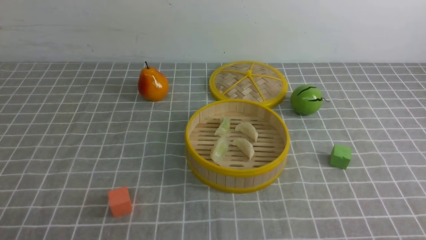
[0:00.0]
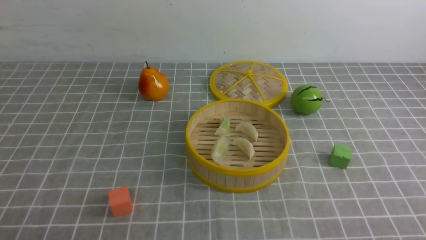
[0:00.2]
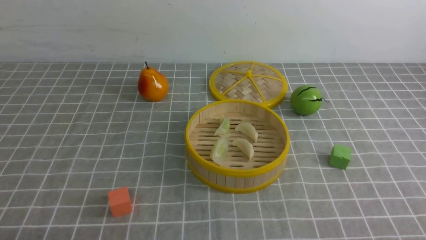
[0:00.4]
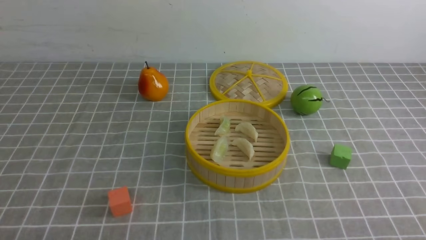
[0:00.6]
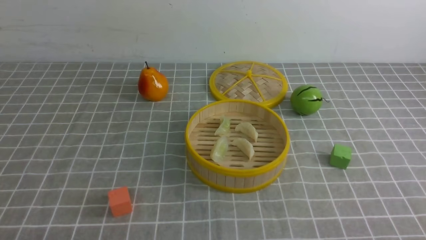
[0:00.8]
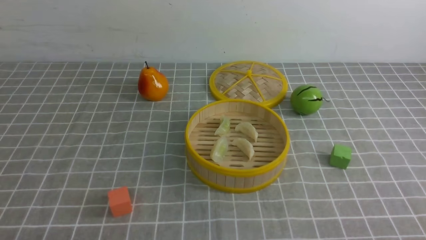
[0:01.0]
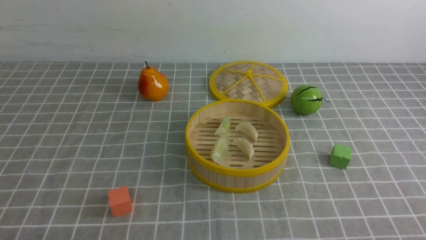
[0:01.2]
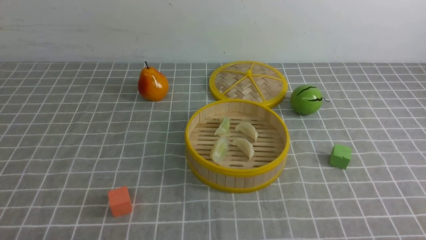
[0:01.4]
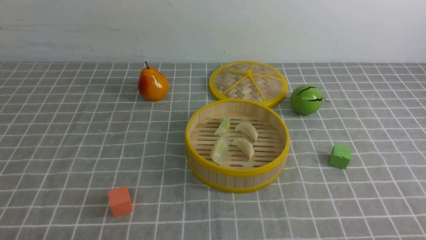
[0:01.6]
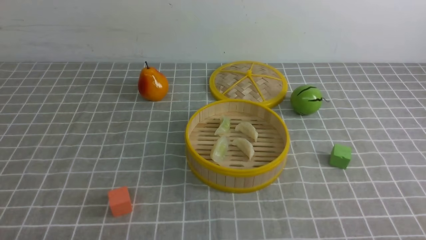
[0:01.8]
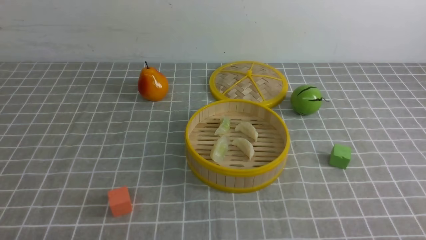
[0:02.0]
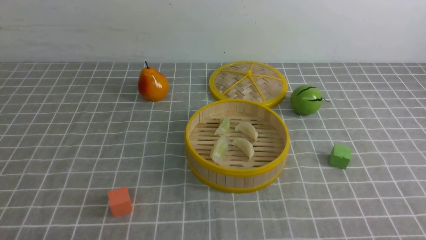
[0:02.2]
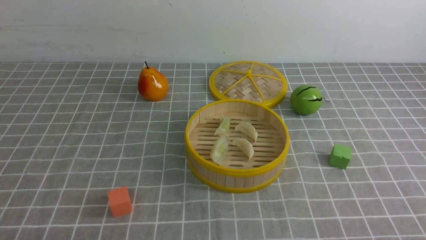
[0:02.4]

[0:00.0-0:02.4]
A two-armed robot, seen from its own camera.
Task of the whole recording: put the dumplings into the steamer on the table with the grey tablecloth.
0:01.2 to 0:02.4: Neither gripper changes place.

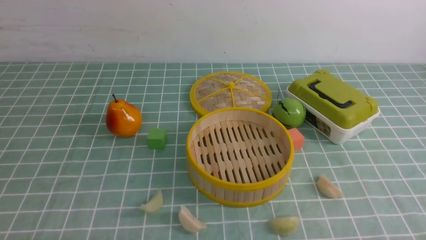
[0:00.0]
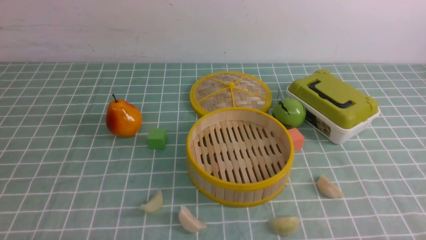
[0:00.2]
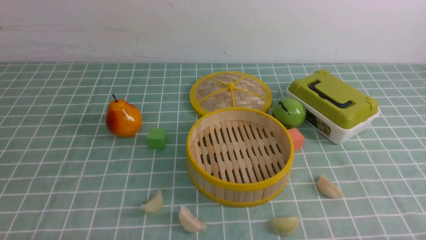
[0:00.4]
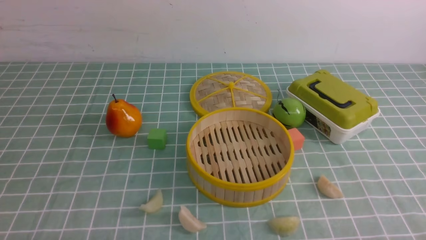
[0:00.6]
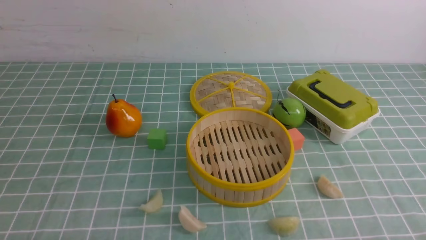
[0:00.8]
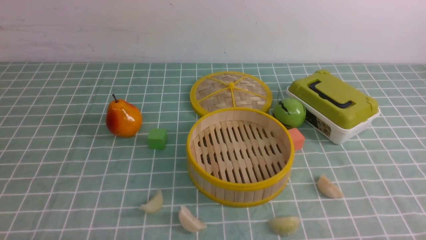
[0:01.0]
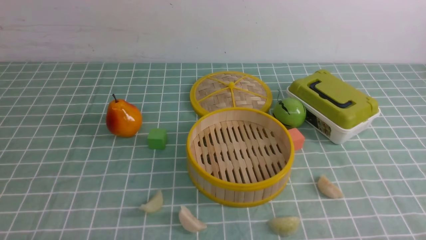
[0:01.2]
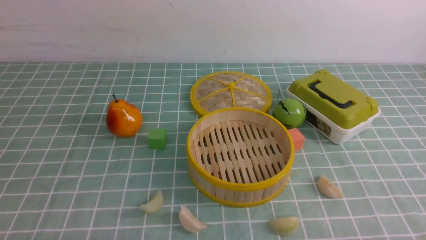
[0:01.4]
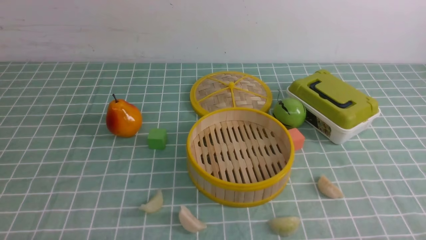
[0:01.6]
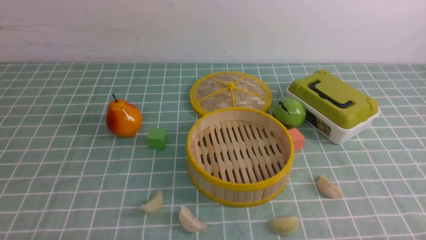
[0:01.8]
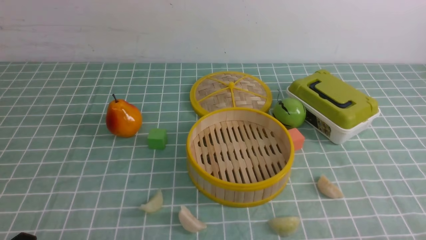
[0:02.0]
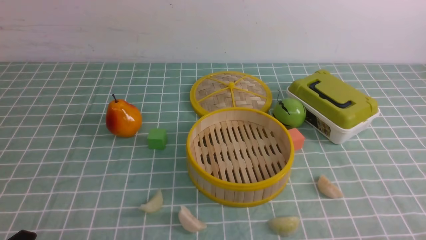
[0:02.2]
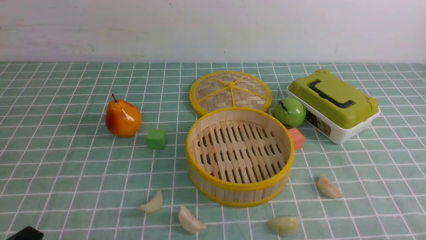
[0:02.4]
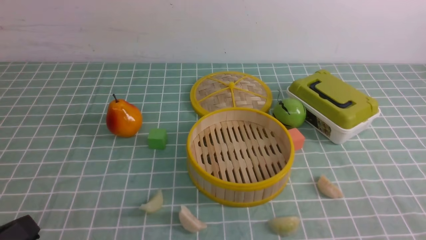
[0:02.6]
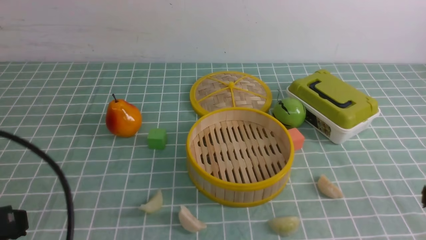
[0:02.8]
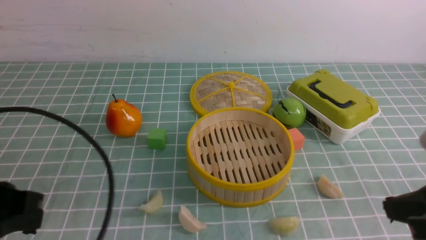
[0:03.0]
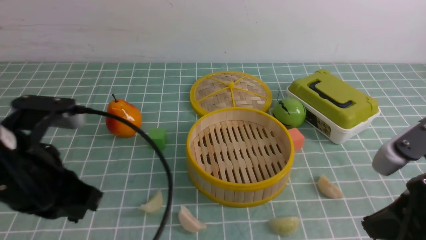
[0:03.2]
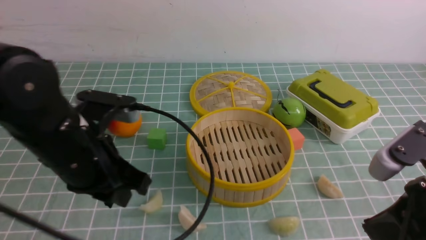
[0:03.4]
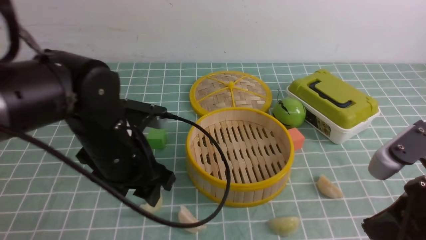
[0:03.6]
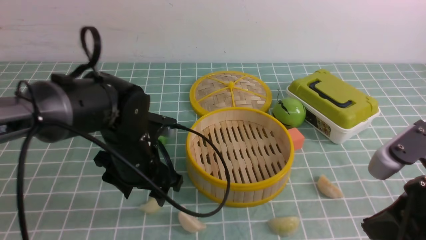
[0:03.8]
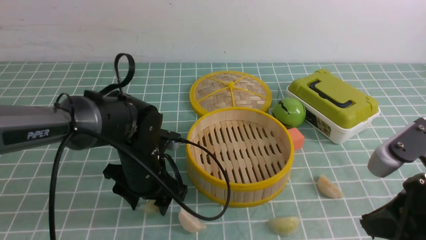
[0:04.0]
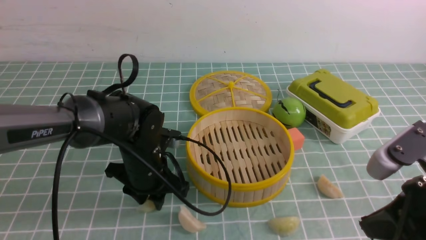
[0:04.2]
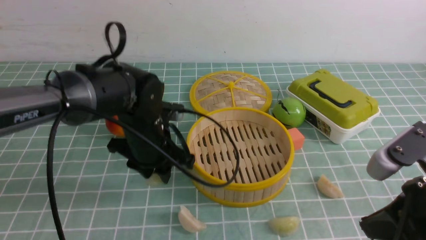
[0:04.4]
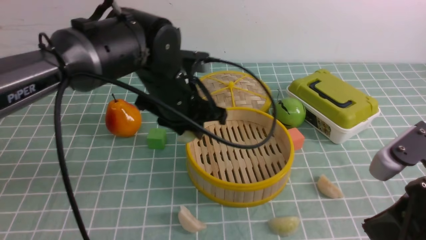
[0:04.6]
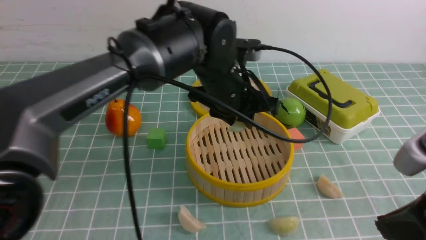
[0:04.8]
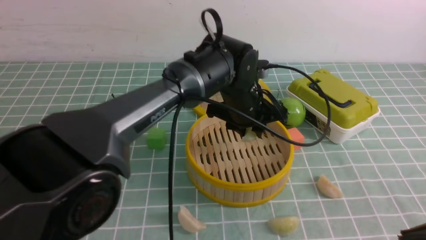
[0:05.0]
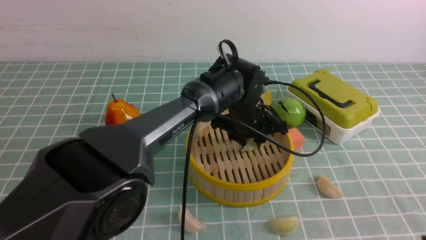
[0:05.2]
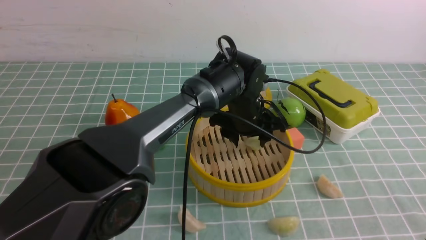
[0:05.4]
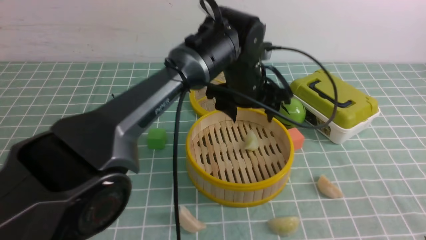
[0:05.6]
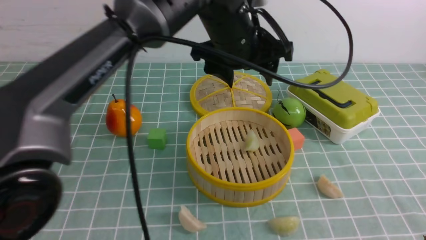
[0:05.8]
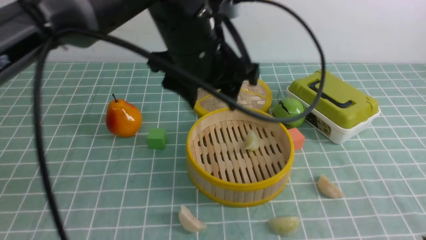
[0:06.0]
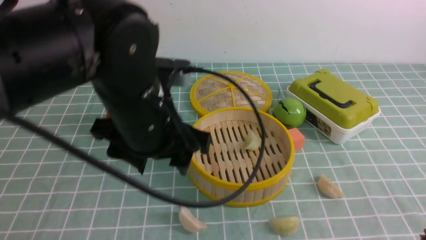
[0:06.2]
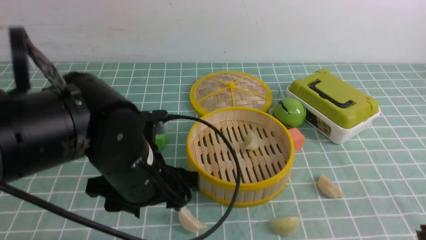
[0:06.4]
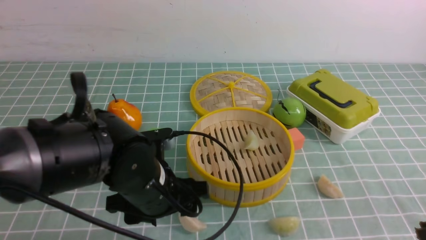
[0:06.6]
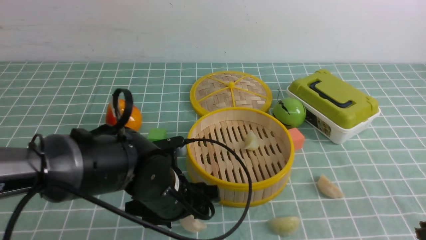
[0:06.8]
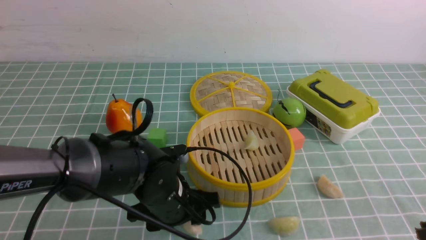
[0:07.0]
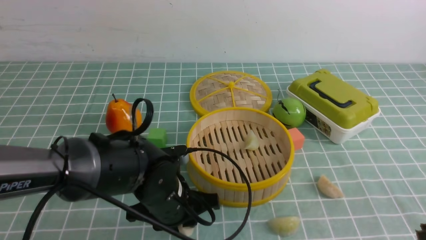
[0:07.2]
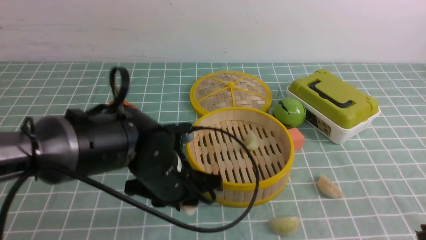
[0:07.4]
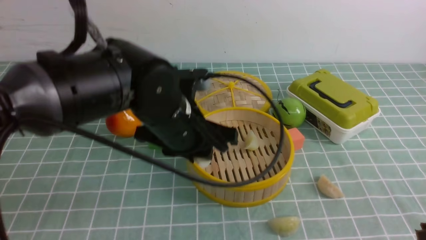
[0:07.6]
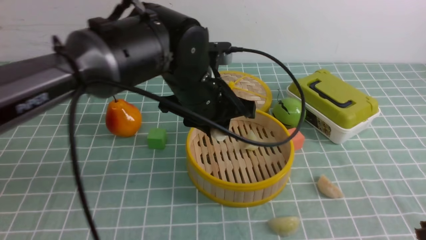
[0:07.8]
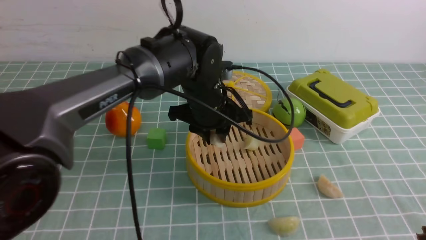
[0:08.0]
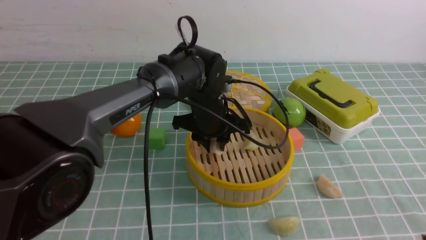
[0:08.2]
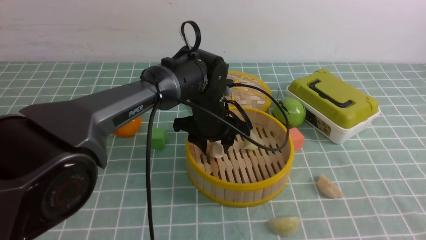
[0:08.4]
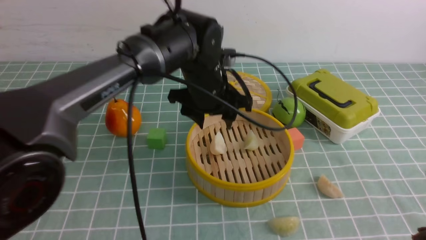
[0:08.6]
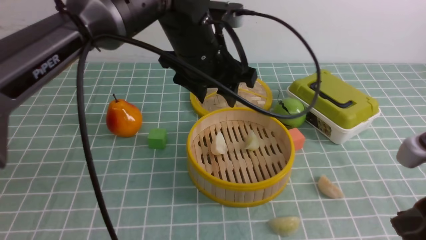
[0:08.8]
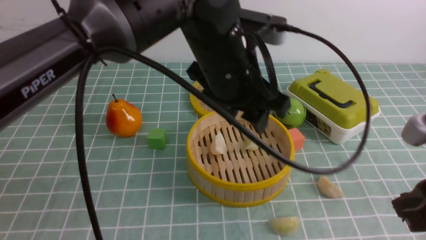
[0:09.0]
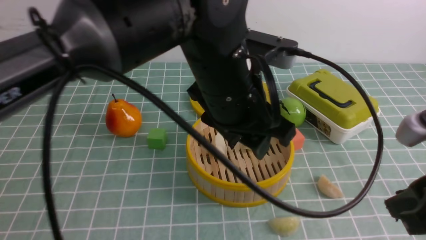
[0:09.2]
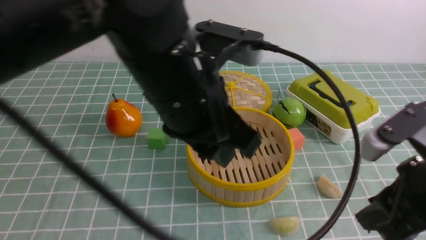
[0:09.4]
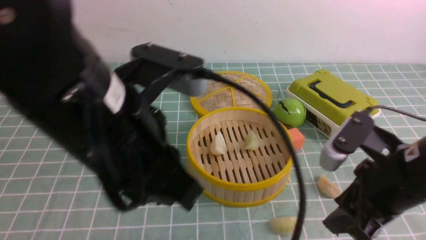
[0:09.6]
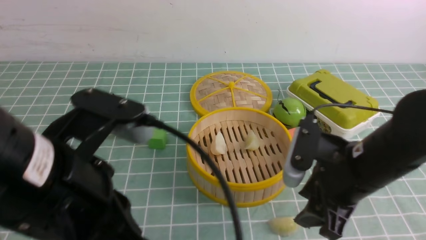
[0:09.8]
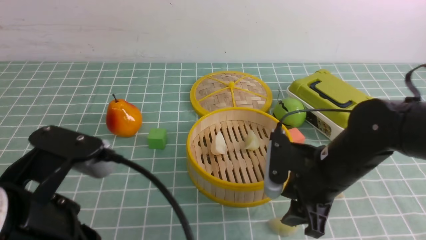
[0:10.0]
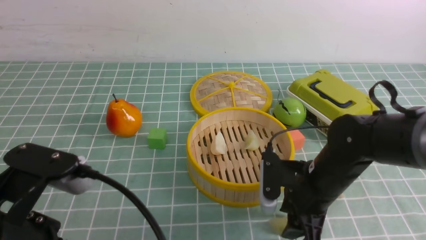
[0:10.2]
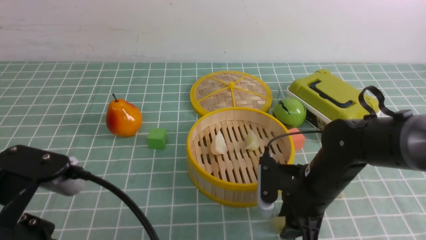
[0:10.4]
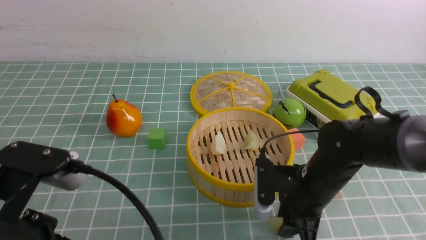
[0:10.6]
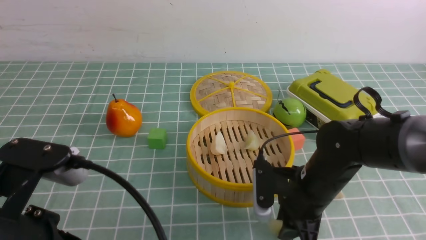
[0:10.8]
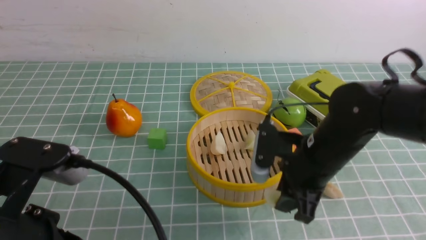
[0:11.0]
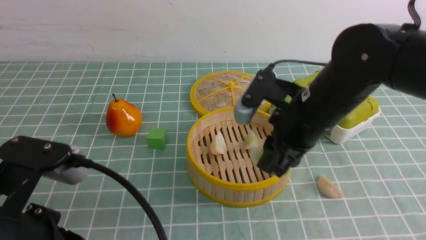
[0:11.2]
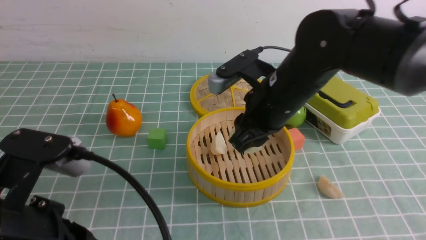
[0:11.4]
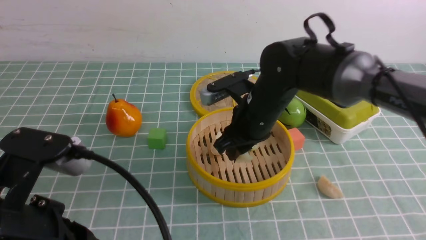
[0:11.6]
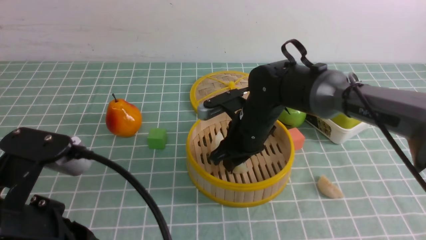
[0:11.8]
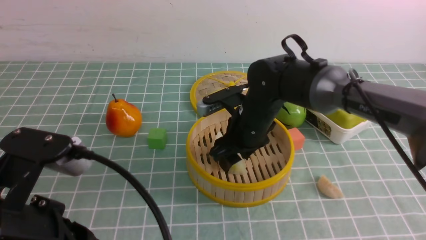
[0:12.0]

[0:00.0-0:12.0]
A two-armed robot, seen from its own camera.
Task of the whole recording: put the dumplings into the steamer on the table with the blue tablecloth.
Step, 0:00.0 to 0:04.0: use the left arm to grab a dumpling.
Step, 0:04.2 to 0:05.6: use the left arm to put the dumpling into the steamer.
Step, 0:05.8 to 0:07.0: use the left arm to grab a dumpling.
Step, 0:07.2 to 0:08.6: use the left arm to put the dumpling into the steamer.
Step, 0:08.8 to 0:10.6: use the right arm to grab a dumpling.
0:01.6 to 0:03.0: The left gripper goes some 20 cm upward and forward, and closes its fingers. Meanwhile the right gripper moves upward, forward and to the left, roughly 15 cm, and closes its fingers.
0:03.0 to 0:04.4: The left gripper travels forward, to the right and downward by roughly 25 cm, and opens its fingers.
0:04.4 to 0:06.0: The right gripper goes approximately 5 cm backward, while the left gripper goes up and down, roughly 15 cm each way, reversing 2 times, and opens its fingers.
0:06.0 to 0:07.6: The left gripper travels downward by about 10 cm, and closes up.
0:07.6 to 0:09.0: The right gripper heads forward, covering approximately 5 cm, while the left gripper moves upward, approximately 10 cm, and opens up.
0:09.0 to 0:10.4: The left gripper shifts some 25 cm backward and to the left, and closes its fingers. Meanwhile the right gripper heads downward, forward and to the left, covering roughly 25 cm, and opens its fingers.
0:10.4 to 0:12.0: The right gripper goes approximately 15 cm forward, to the left and upward.

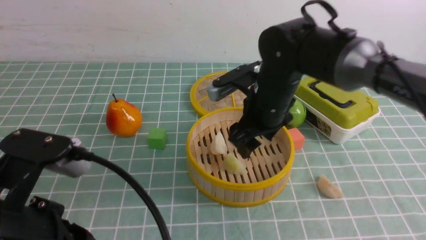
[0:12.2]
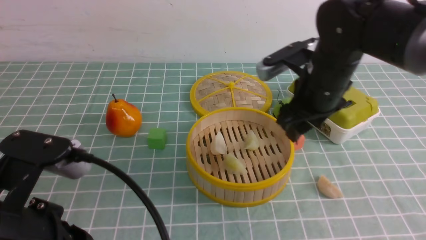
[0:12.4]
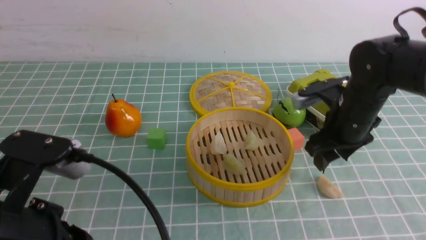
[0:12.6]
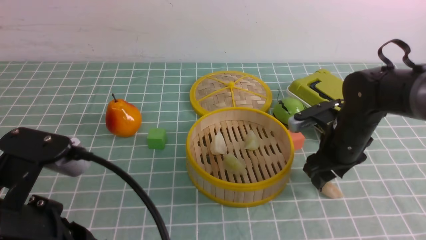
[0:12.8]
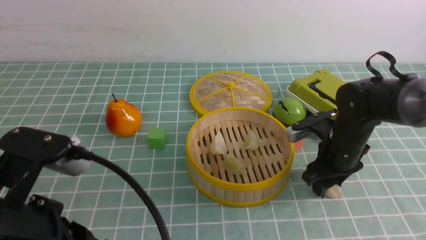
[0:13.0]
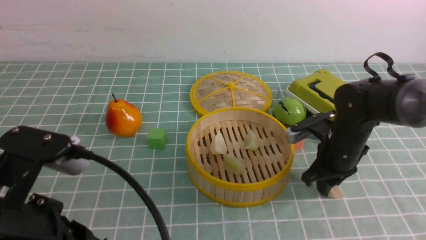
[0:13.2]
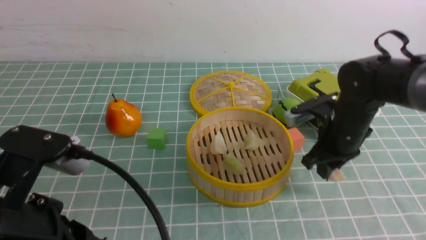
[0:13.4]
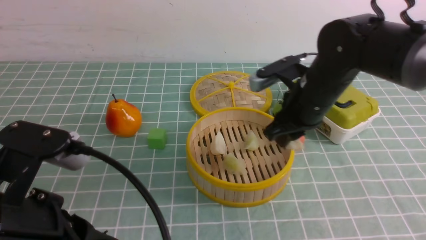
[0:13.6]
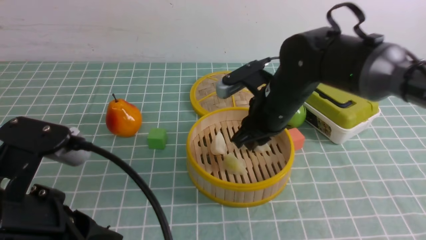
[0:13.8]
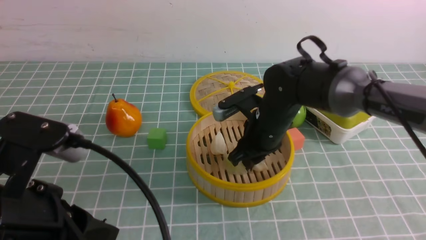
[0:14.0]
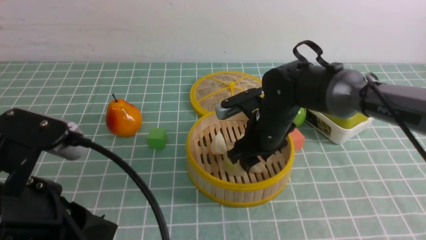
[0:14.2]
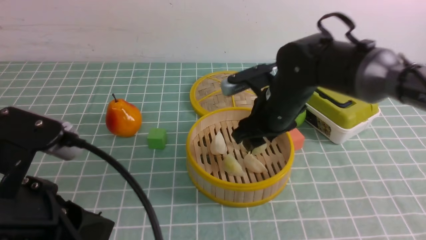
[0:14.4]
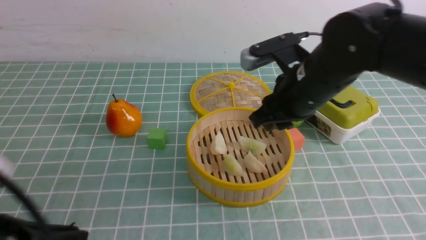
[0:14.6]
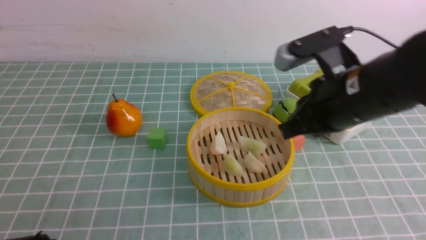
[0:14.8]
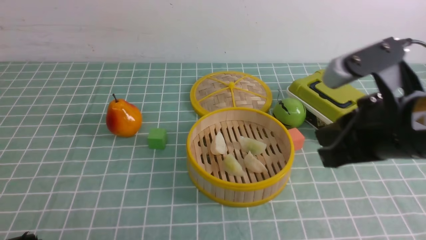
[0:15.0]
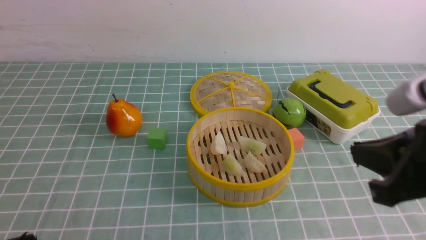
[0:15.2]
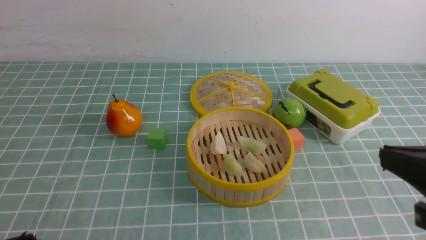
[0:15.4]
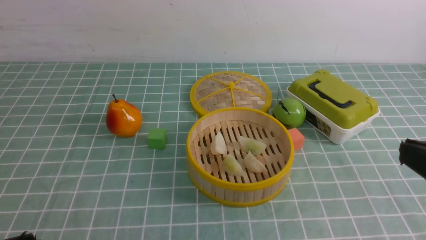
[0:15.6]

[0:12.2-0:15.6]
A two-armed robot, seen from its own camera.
Task of the whole recording: put the dumplings into the steamer on the table with the blue tablecloth.
Step, 0:12.4 to 0:13.2: use the right arm to grab a dumpling.
Step, 0:13.4 to 0:14.4: use the right arm to put the dumpling into the steamer.
0:12.2 to 0:13.8: The right gripper travels to the right and back again, some 10 cm each way, and closes its fingers.
0:13.8 to 0:15.6: The right gripper heads backward and to the right, covering roughly 30 cm, and closes its fingers; the left gripper moves to the left and backward, approximately 10 cm.
